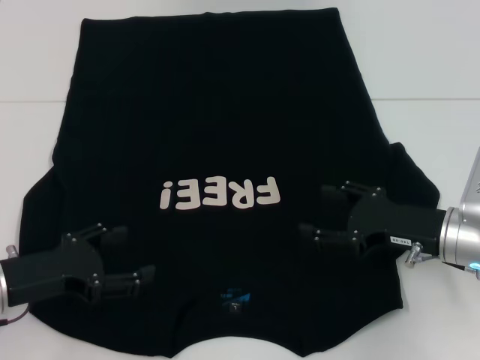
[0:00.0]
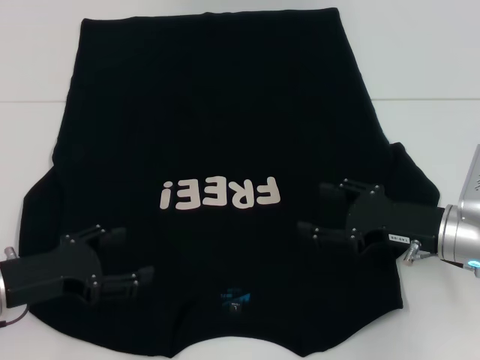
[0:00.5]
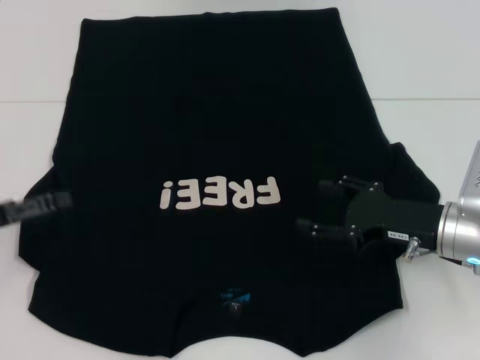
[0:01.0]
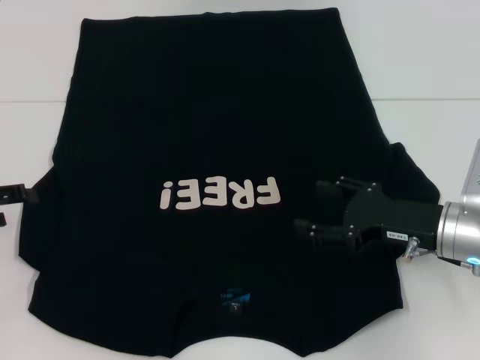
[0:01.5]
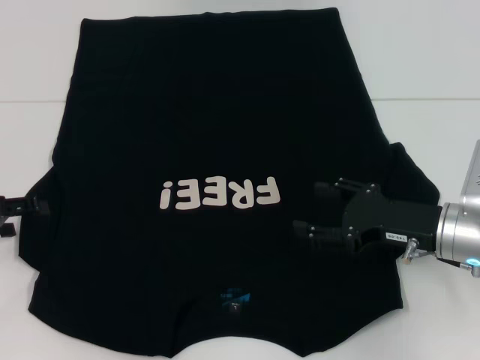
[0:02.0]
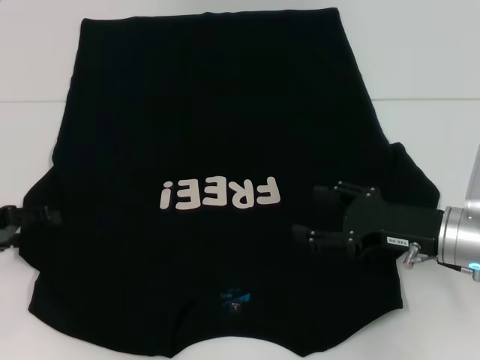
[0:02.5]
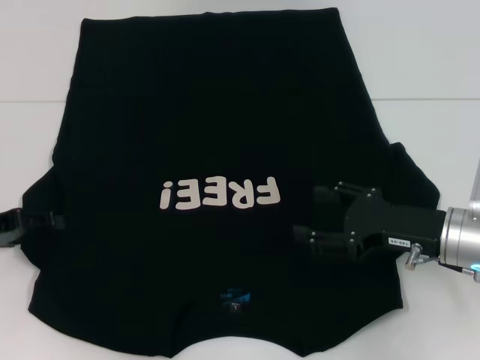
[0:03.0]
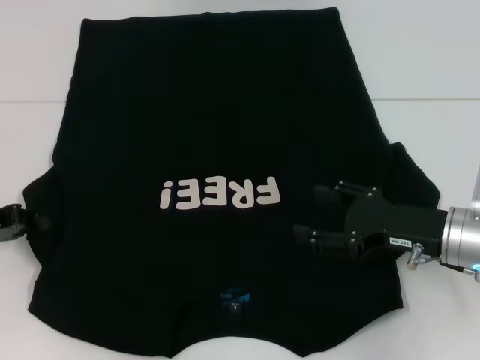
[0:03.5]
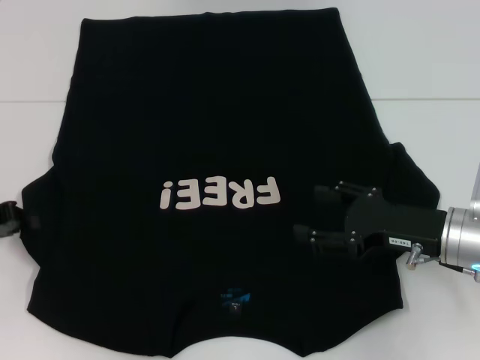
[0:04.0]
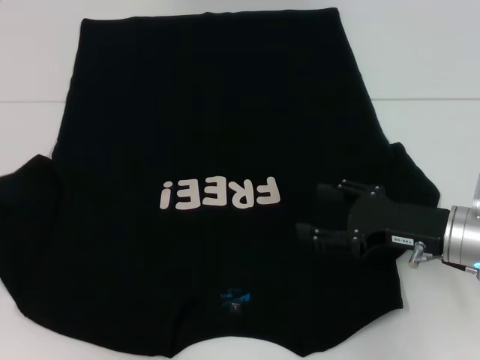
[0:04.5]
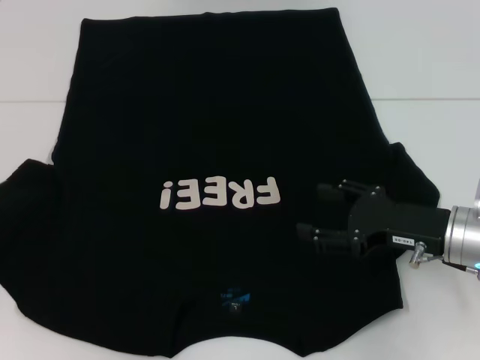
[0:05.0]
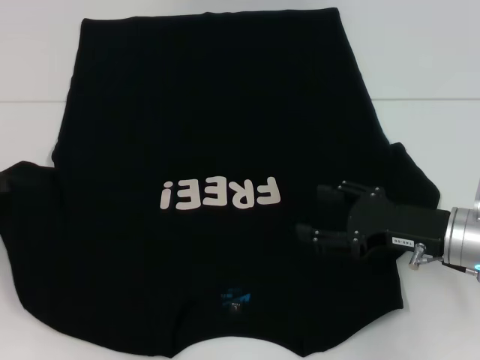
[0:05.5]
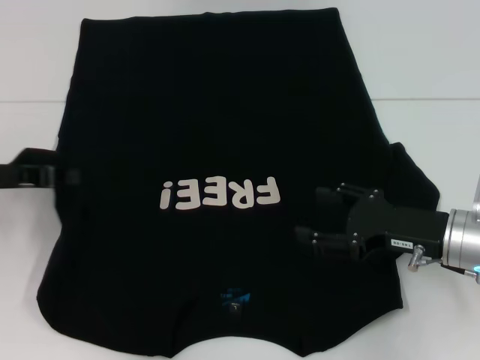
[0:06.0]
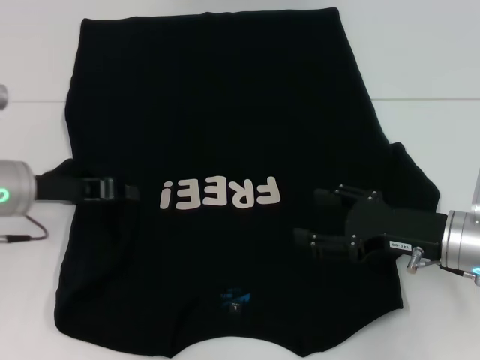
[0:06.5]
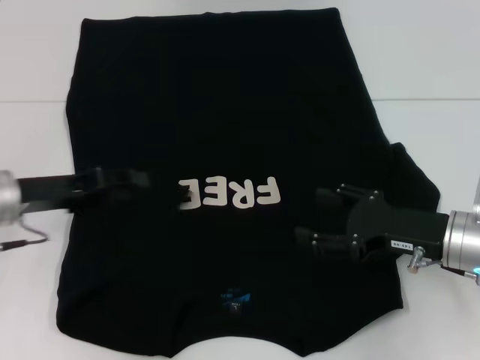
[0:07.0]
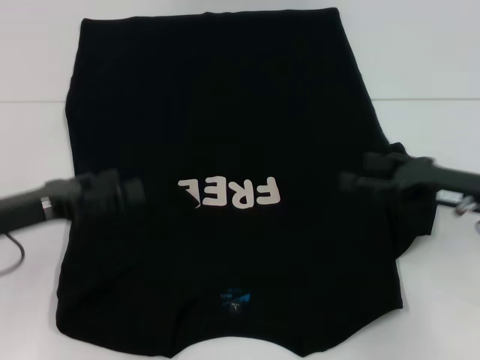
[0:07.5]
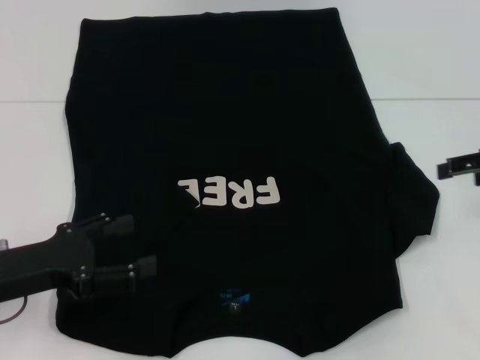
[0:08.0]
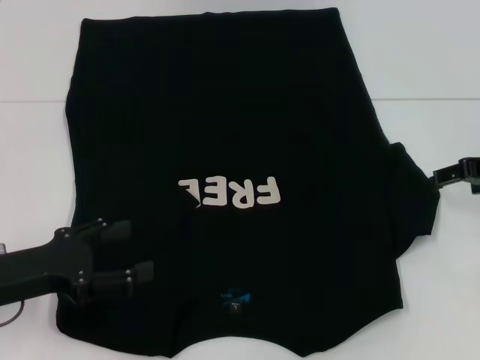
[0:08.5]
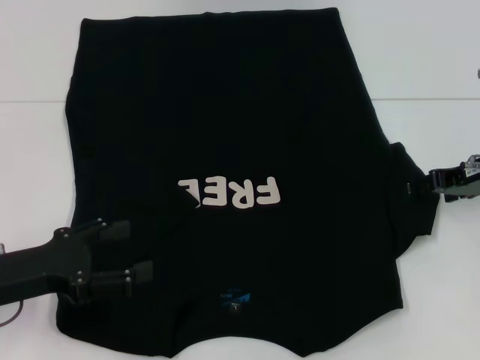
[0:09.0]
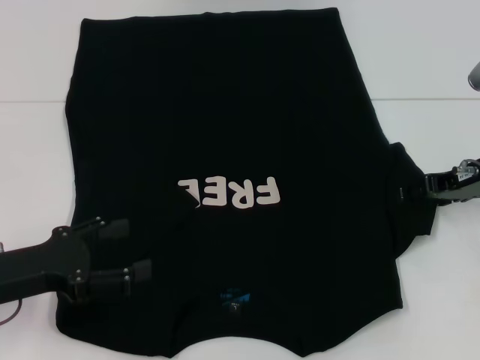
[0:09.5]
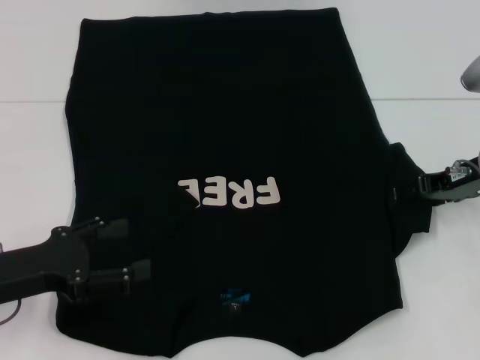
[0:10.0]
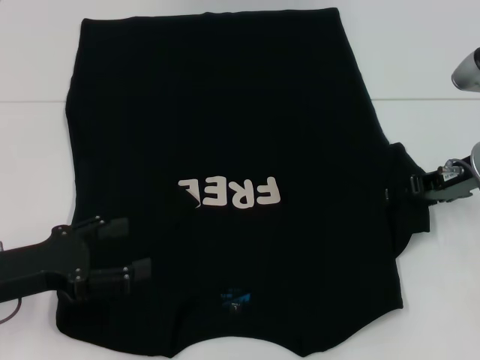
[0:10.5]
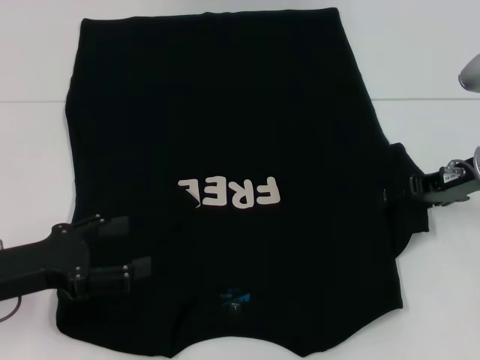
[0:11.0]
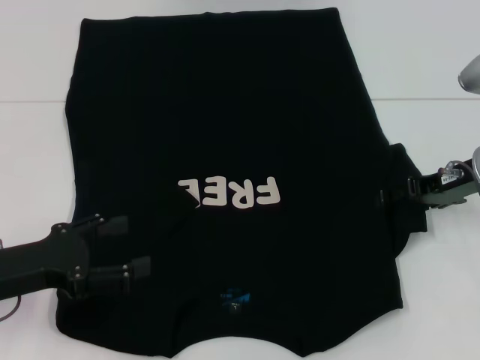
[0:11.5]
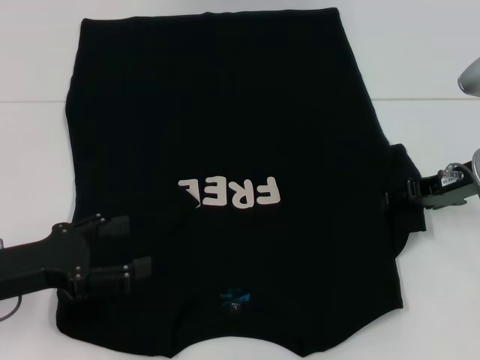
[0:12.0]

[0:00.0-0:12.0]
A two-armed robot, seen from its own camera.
Step, 0.0 to 7.0 s: Fold the bottom left sleeve with your left hand.
0.0 to 2.0 s: The left gripper is displaced to the left and forward by roughly 10 cm.
2.0 to 4.0 s: The left gripper closes.
4.0 to 6.0 s: The left gripper travels upward and to the right by some 10 cm.
6.0 to 8.0 s: The right gripper travels upward, to the right and forward by some 15 cm; the left gripper is displaced backward and downward by roughly 10 cm, and opens.
8.0 to 10.0 s: The right gripper goes roughly 10 cm to the left and downward.
10.0 to 12.0 s: The grippers stay close to where they were, moving slightly.

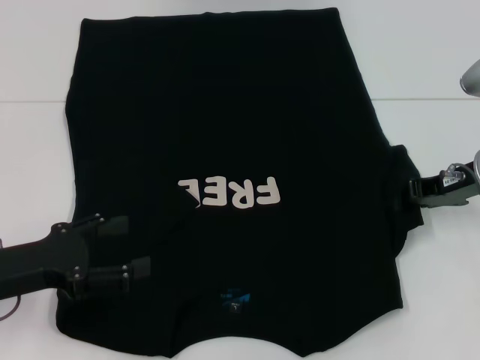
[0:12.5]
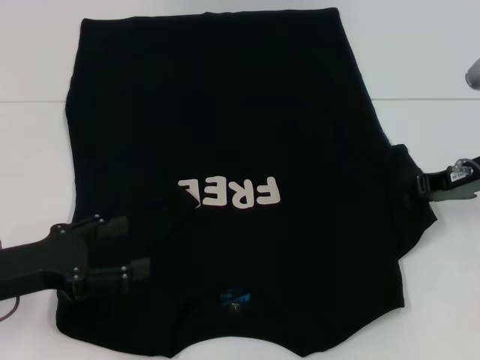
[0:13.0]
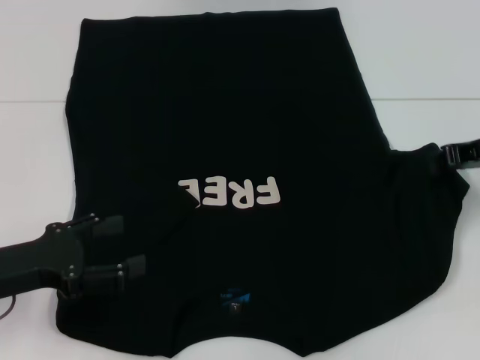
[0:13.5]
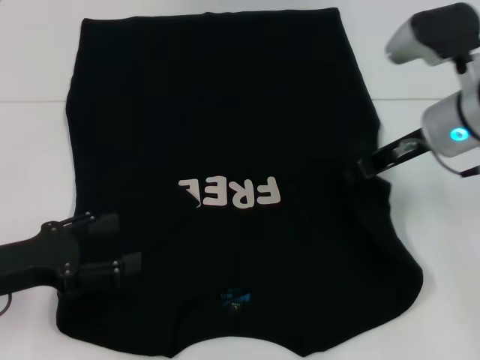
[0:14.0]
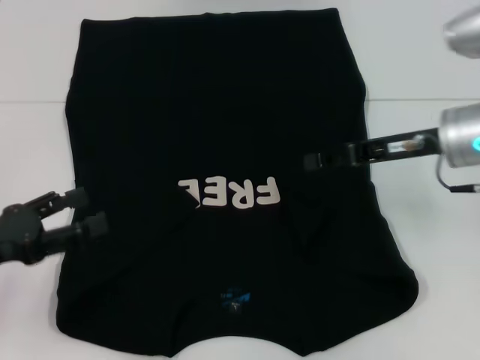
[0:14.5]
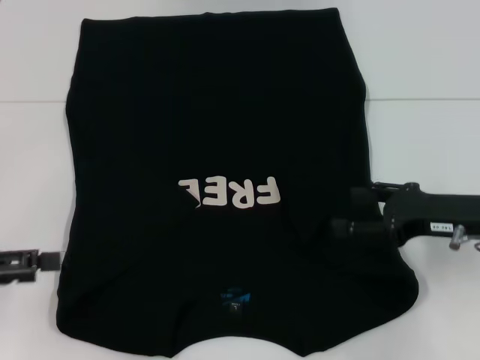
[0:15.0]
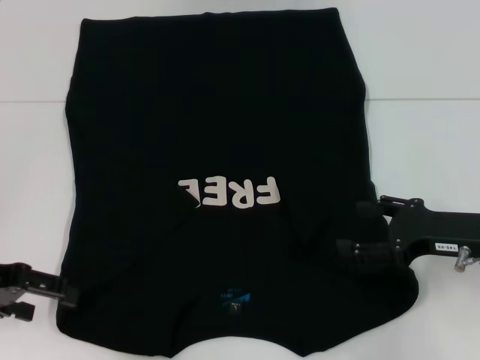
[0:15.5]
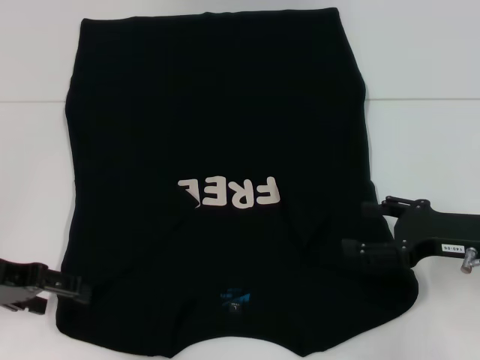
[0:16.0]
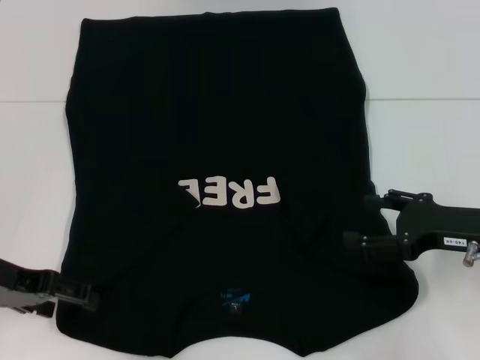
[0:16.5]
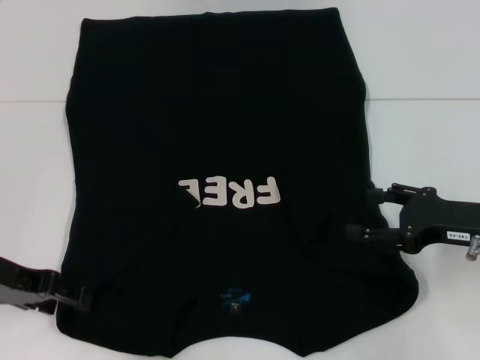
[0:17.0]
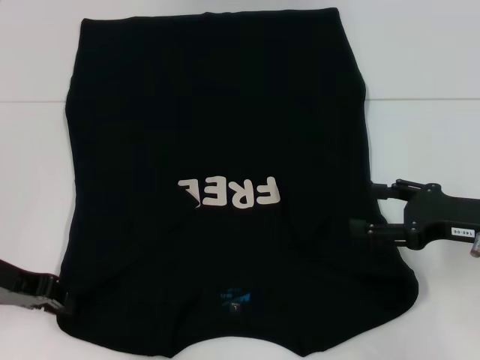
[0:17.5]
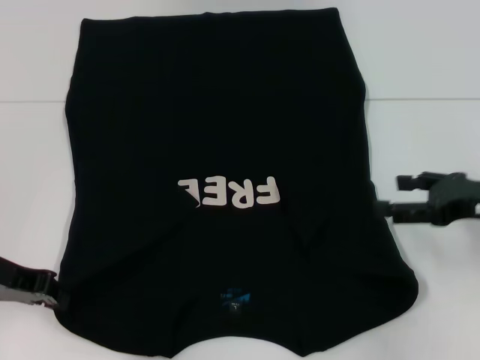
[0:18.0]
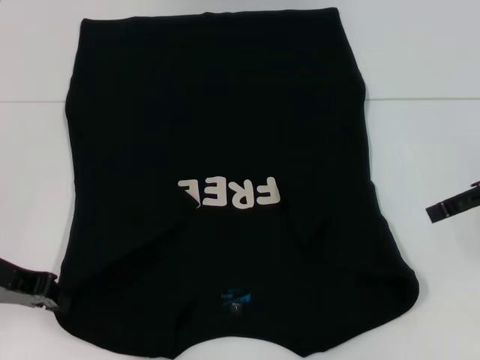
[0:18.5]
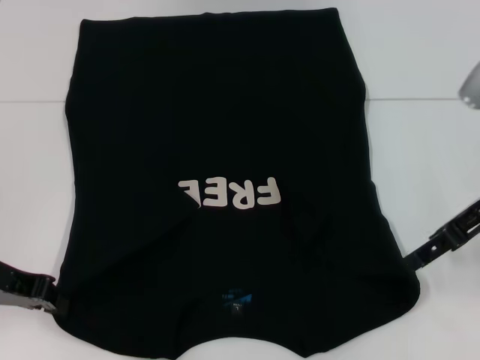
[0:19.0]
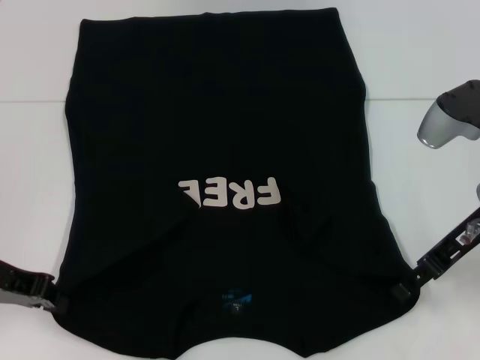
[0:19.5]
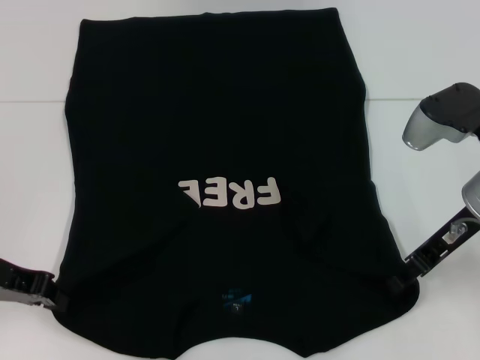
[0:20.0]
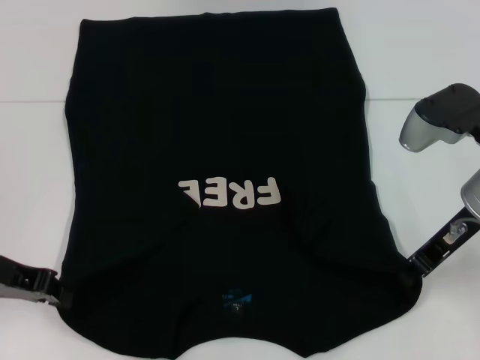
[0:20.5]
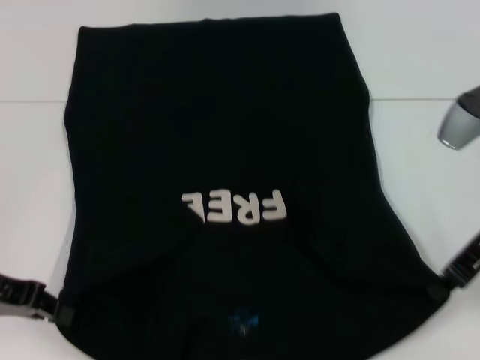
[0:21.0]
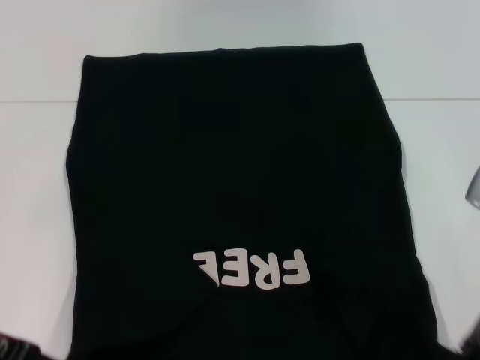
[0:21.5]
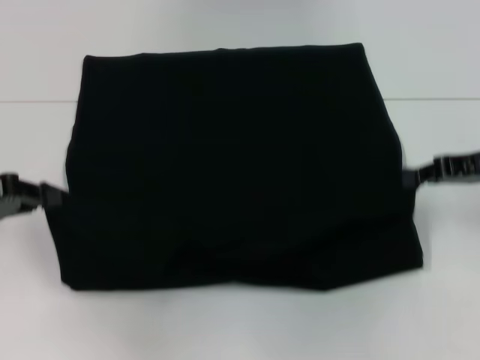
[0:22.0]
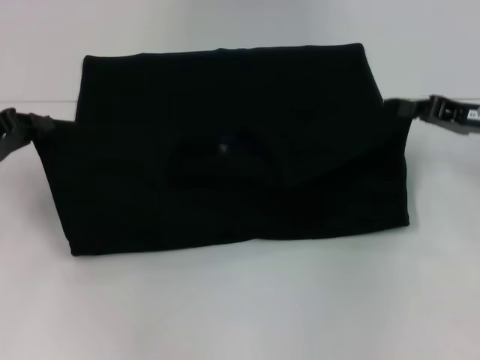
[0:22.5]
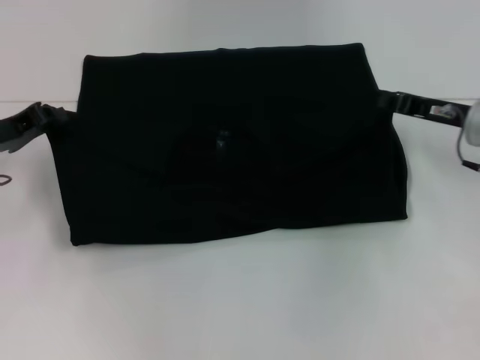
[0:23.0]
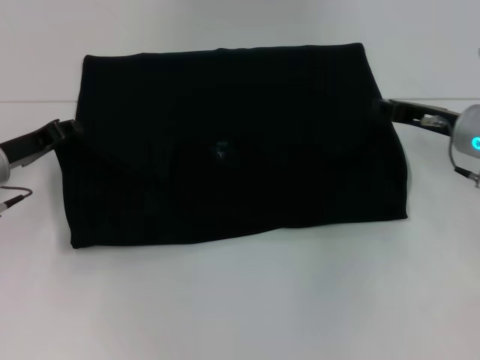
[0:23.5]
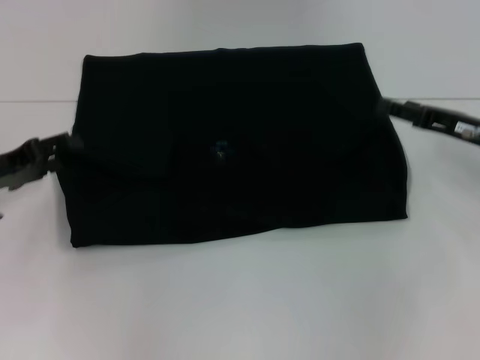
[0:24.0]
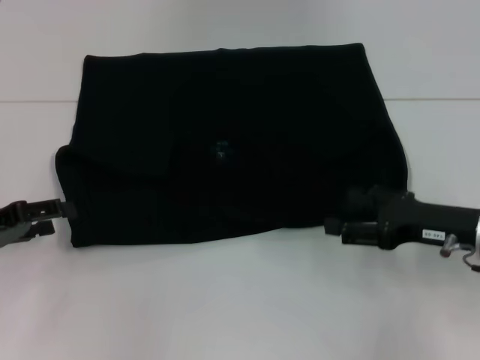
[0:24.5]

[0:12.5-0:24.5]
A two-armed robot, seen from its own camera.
Step, 12.5 to 14.5 s: Fold the bottom right sleeve with your right hand.
Step, 15.0 to 17.5 s: Grab the bottom left corner with your left hand.
Step, 18.0 to 20.5 s: Grab the bottom right corner with your right hand.
Step, 21.0 to 23.5 s: Fold the clothes with your left hand.
Step, 21.0 to 23.5 s: Fold the clothes with your right hand.
12.5 to 14.5 s: The right gripper ends up roughly 5 cm from where it was.
14.5 to 16.5 s: The right gripper travels backward, downward and to the right by approximately 10 cm, and opens. Meanwhile the left gripper moves forward, roughly 5 cm.
16.5 to 18.5 s: The right gripper heads upward, covering approximately 10 cm. The left gripper closes up.
18.5 to 20.5 s: The right gripper moves to the left and downward, about 10 cm, and closes.
20.5 to 22.5 s: The right gripper goes about 10 cm to the right; the left gripper shifts by some 5 cm.
22.5 to 24.5 s: The left gripper moves about 5 cm, and opens up. The right gripper heads backward and downward, covering roughly 10 cm, and opens up.

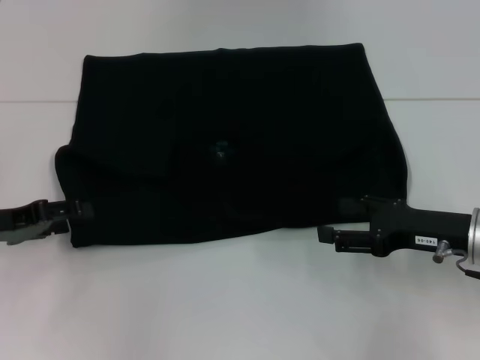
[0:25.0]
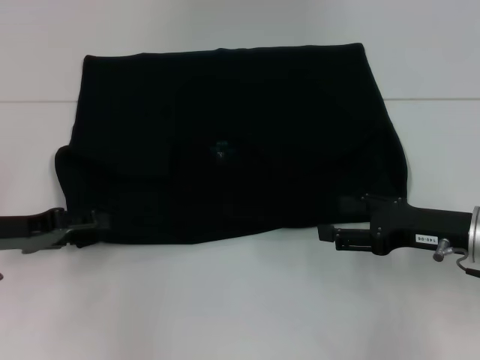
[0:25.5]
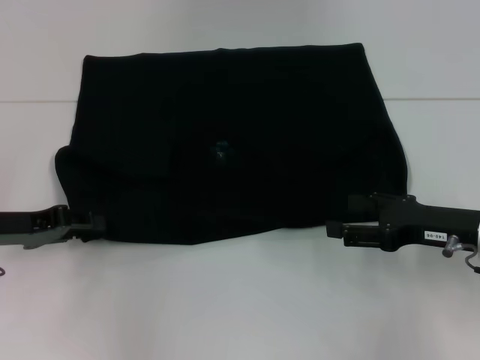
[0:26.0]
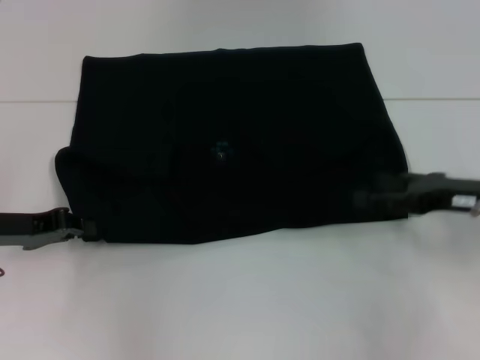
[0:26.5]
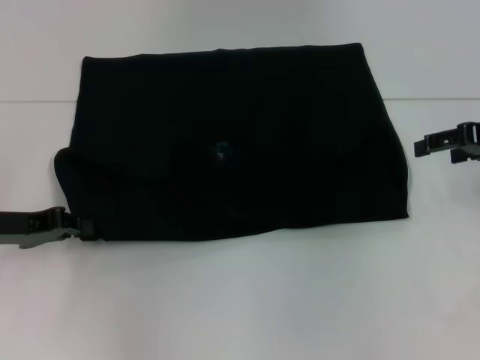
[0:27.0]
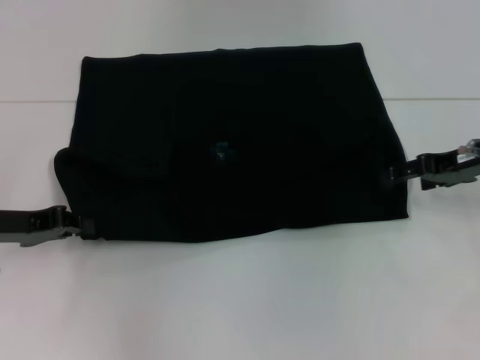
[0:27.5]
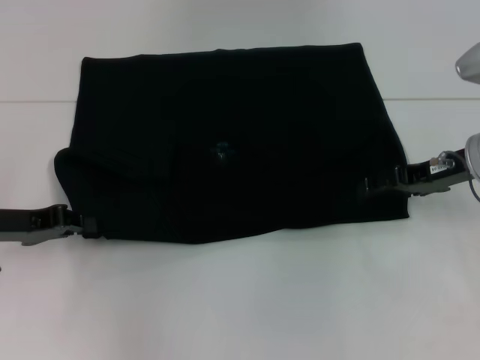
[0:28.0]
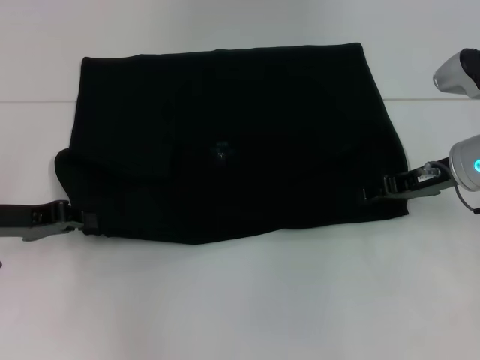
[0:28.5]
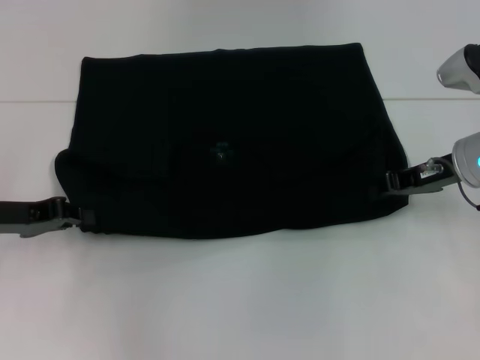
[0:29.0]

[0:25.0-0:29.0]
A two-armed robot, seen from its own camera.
25.0 to 27.0 s: The left gripper closes its fingers; the right gripper heads upward, forward and to the right, covering about 15 cm.
27.0 to 29.0 s: The right gripper moves to the left and downward, approximately 10 cm, and closes its fingers.
